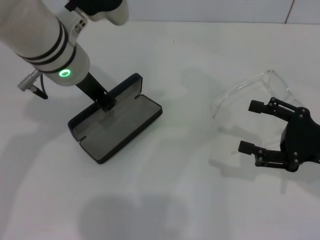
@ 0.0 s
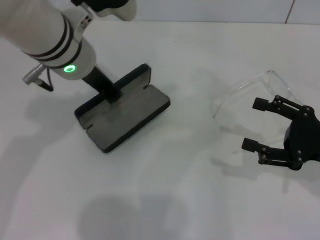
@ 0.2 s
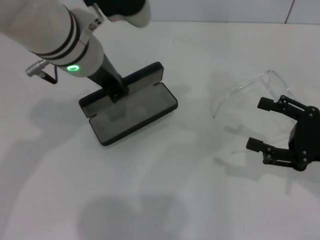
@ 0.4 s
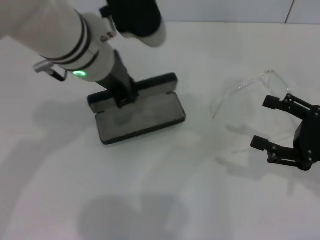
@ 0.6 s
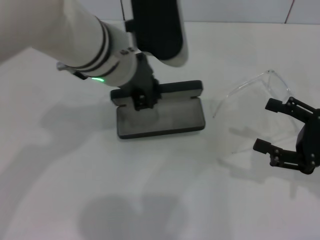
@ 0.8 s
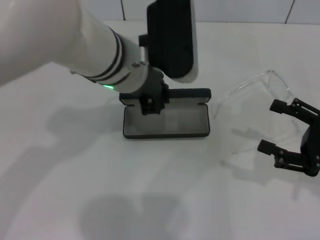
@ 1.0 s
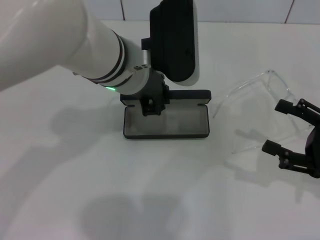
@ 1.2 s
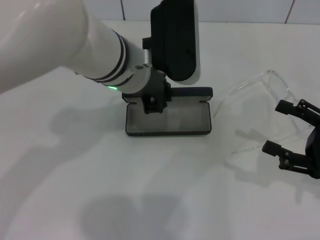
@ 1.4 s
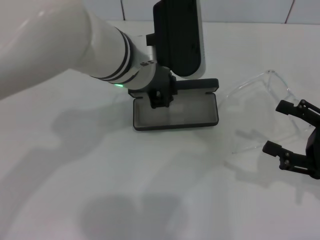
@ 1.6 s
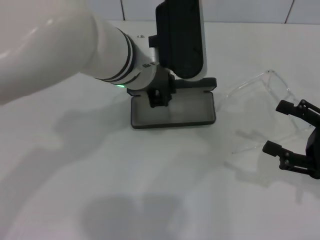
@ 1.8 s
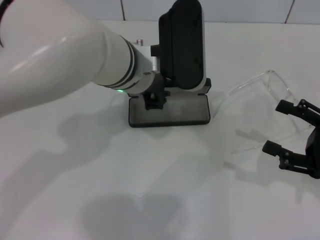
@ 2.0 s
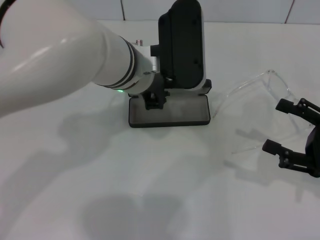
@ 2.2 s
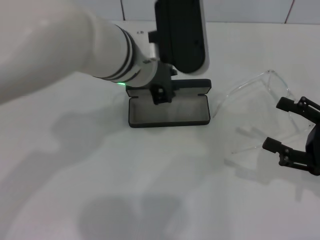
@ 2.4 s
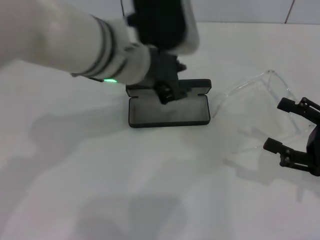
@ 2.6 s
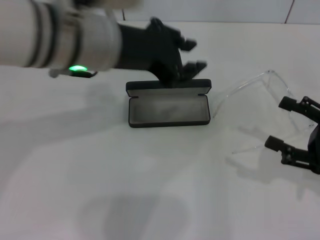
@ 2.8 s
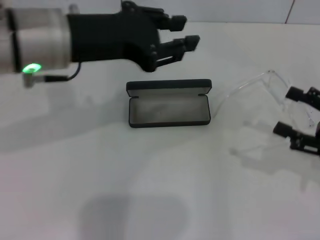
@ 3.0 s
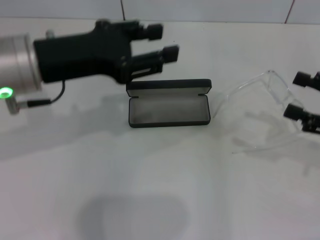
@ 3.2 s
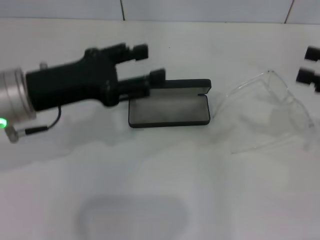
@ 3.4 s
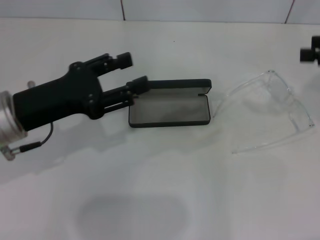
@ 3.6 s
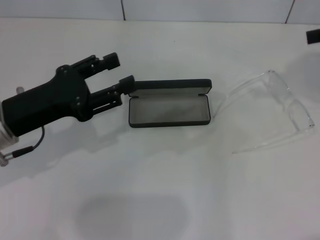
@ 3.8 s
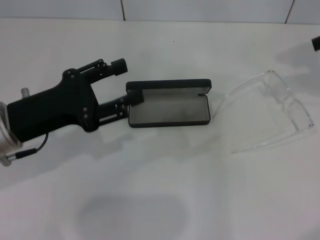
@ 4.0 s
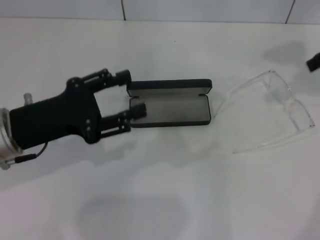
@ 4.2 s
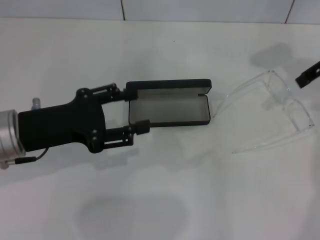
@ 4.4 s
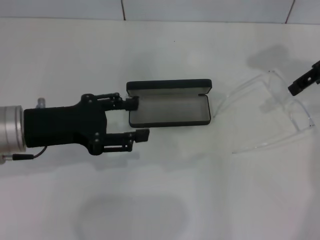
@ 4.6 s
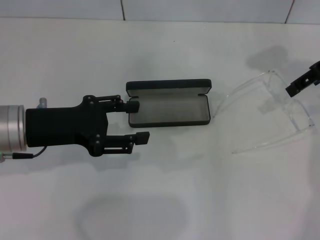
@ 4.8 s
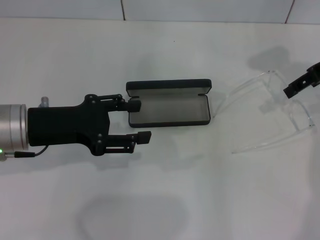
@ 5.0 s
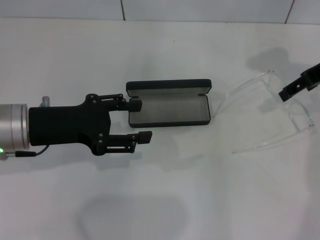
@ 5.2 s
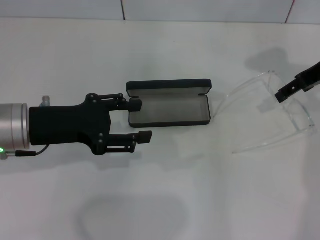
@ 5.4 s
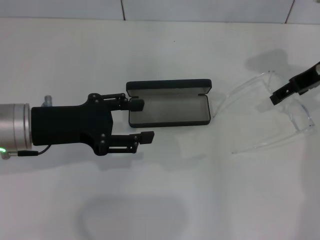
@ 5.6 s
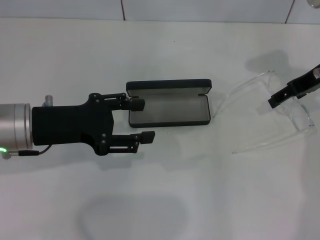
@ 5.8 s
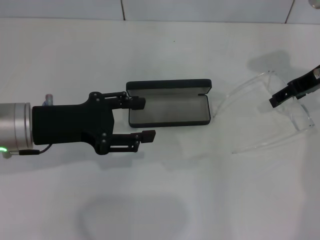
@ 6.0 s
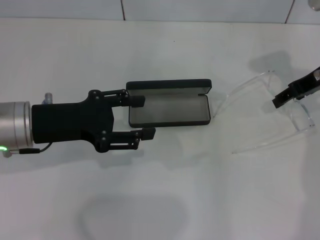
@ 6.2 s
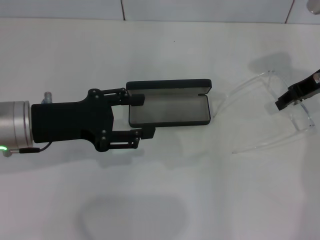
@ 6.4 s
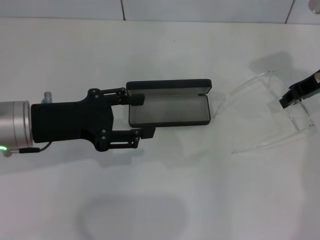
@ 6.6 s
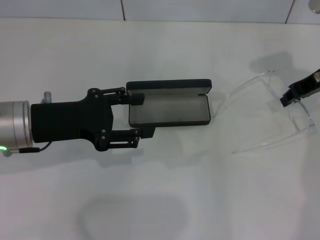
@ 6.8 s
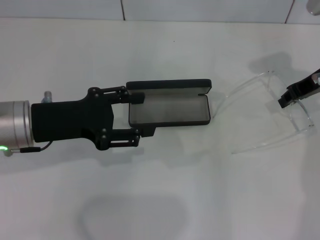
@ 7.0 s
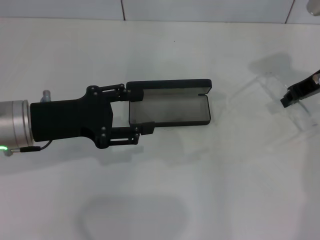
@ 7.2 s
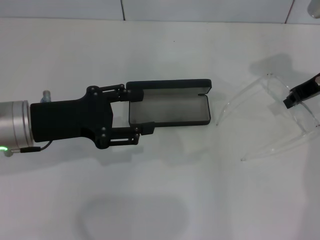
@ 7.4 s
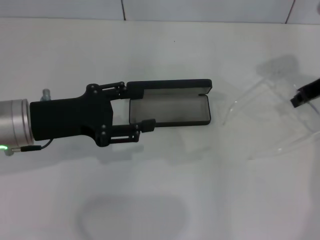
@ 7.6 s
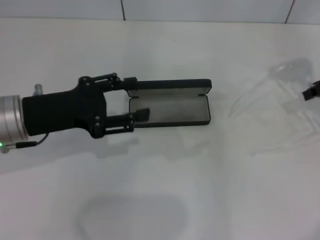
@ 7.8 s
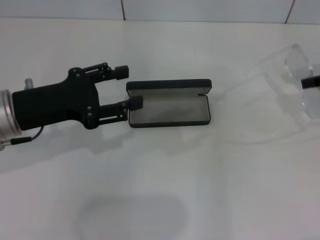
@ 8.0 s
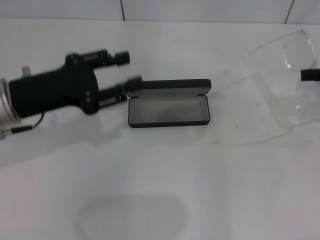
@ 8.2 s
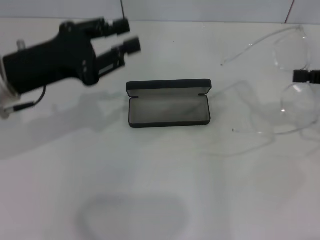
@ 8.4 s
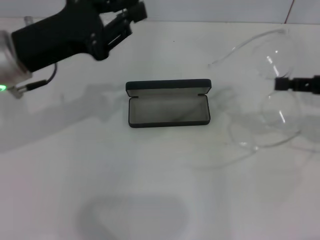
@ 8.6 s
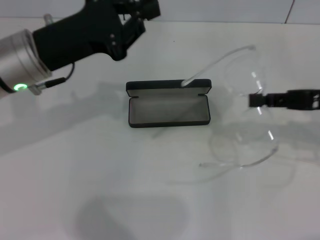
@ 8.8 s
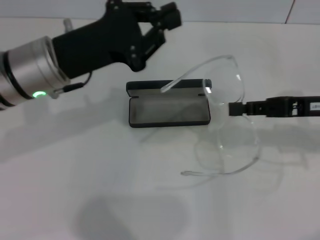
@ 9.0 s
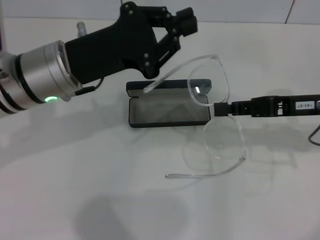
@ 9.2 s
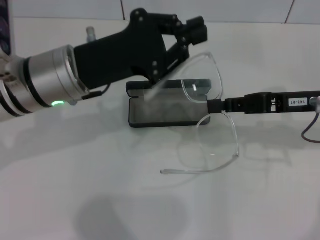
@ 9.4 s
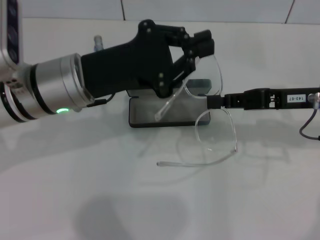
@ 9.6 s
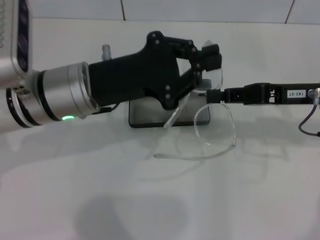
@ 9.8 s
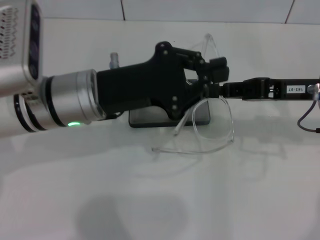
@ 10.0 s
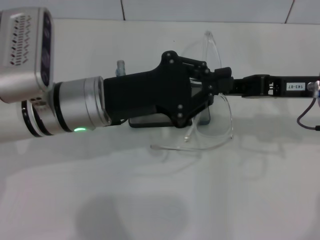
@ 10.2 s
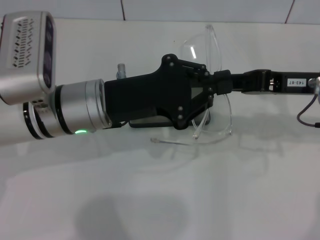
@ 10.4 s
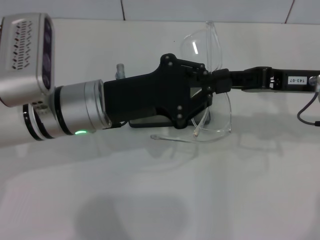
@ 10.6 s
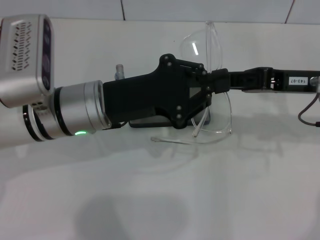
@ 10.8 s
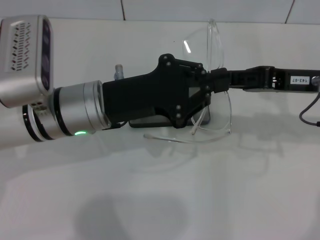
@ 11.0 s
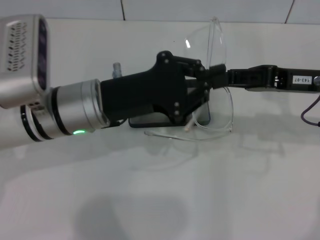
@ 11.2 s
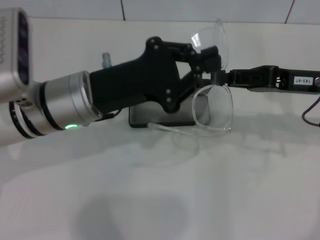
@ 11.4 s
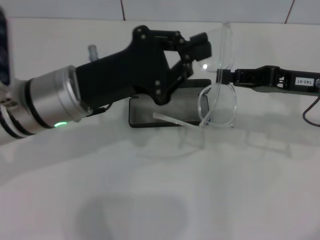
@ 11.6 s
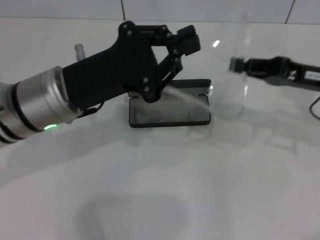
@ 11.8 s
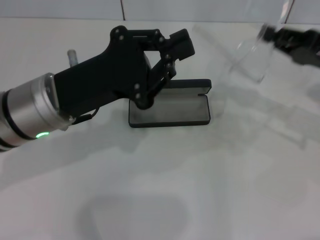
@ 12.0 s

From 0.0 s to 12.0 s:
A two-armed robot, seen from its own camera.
Step, from 0.0 s to 2.6 s: Place the glasses case in the center of the table with your left hand.
Step, from 2.8 s to 7.2 s: Grab the eyeglass frame with your right hand.
From 0.0 s to 1.6 s: The left gripper moves to the right, roughly 5 cm.
From 1.6 s to 3.0 s: The left gripper goes about 10 cm to the left and upward.
From 3.0 s to 4.4 s: The left gripper is displaced downward and to the left by some 15 cm, and opens up, while the right gripper is displaced upward and forward by roughly 25 cm.
From 4.4 s to 6.0 s: The right gripper is displaced downward by roughly 10 cm.
From 6.0 s to 7.6 s: The right gripper closes up.
From 7.6 s to 9.0 s: The left gripper changes place by approximately 5 cm, and closes up; the right gripper moves backward, some 10 cm.
From 9.0 s to 10.4 s: The left gripper changes place by approximately 5 cm.
From 10.4 s to 12.0 s: The right gripper goes approximately 5 cm to the right.

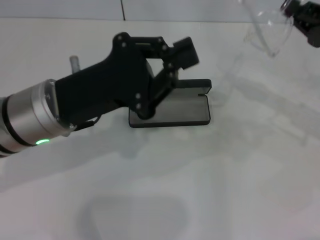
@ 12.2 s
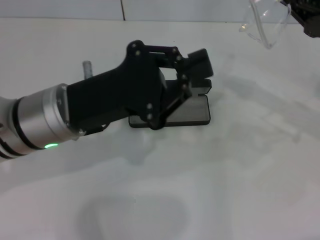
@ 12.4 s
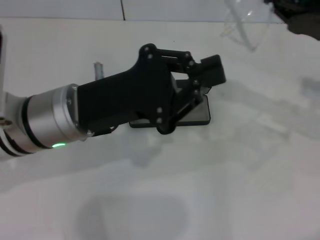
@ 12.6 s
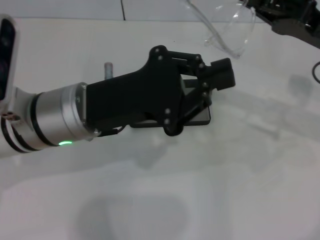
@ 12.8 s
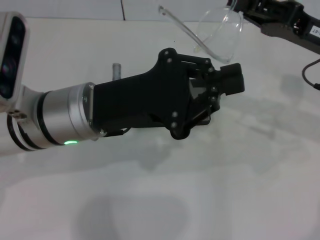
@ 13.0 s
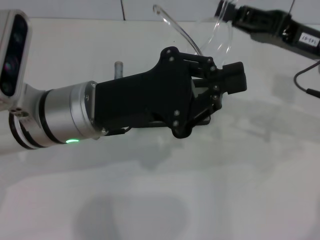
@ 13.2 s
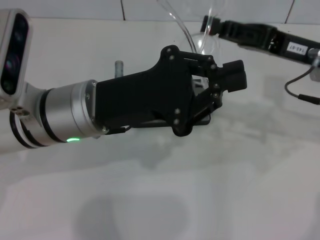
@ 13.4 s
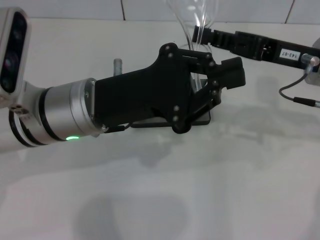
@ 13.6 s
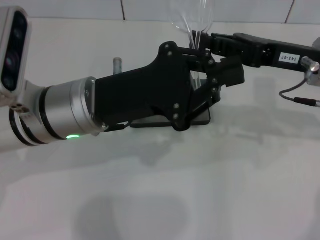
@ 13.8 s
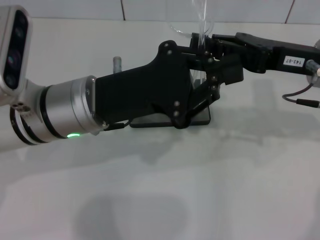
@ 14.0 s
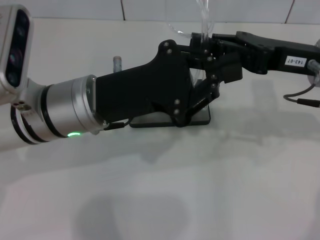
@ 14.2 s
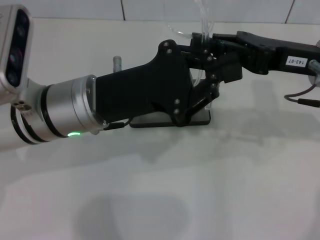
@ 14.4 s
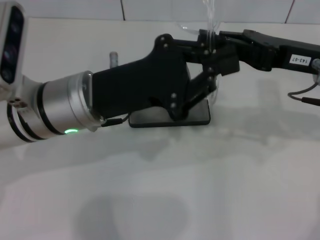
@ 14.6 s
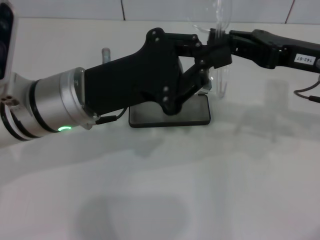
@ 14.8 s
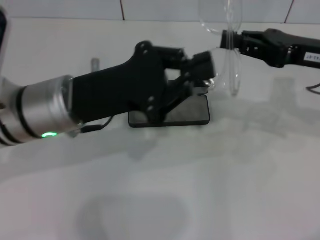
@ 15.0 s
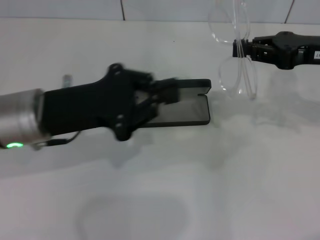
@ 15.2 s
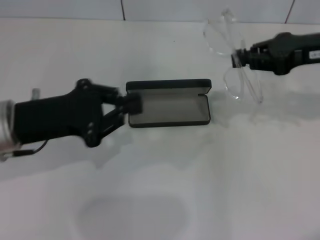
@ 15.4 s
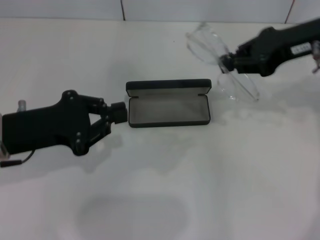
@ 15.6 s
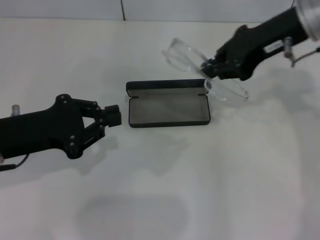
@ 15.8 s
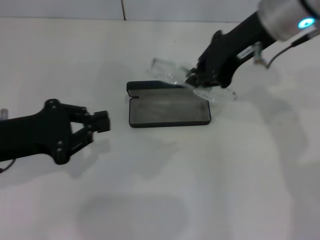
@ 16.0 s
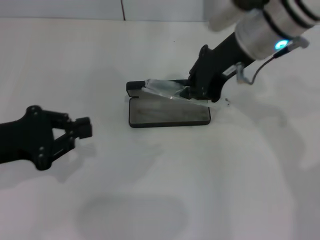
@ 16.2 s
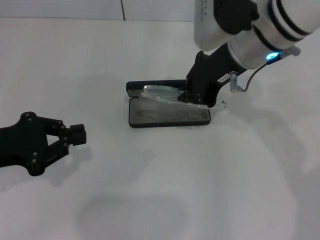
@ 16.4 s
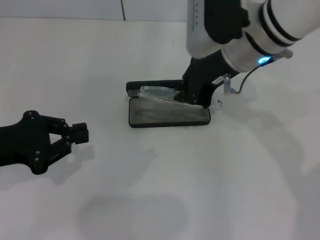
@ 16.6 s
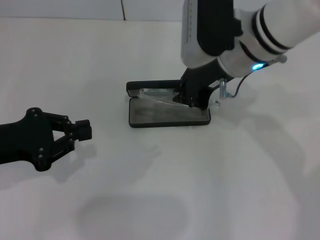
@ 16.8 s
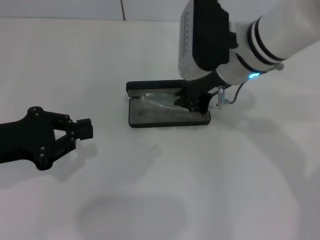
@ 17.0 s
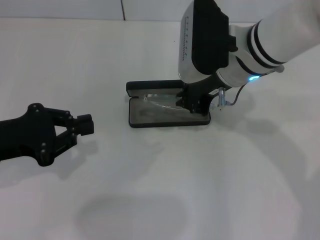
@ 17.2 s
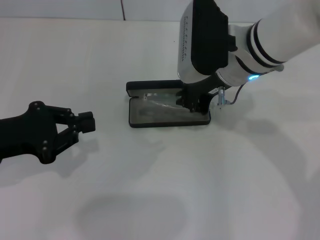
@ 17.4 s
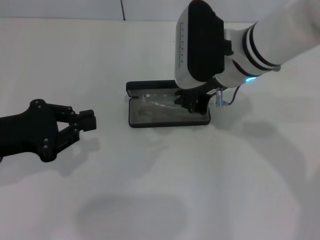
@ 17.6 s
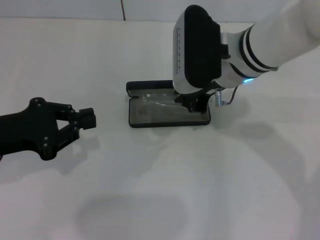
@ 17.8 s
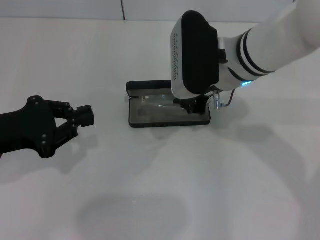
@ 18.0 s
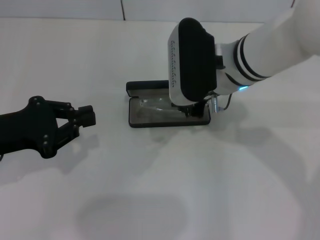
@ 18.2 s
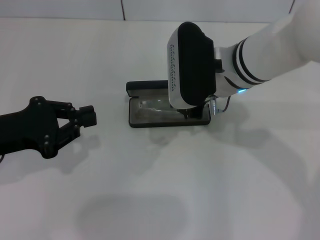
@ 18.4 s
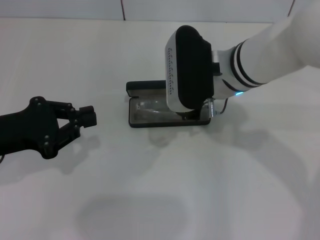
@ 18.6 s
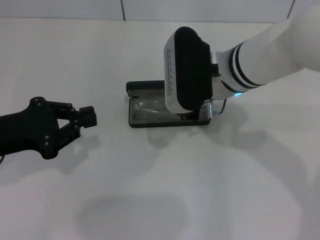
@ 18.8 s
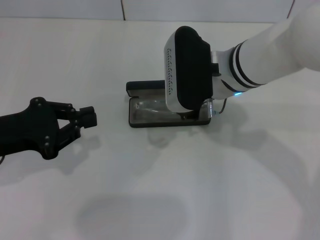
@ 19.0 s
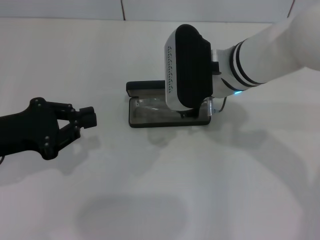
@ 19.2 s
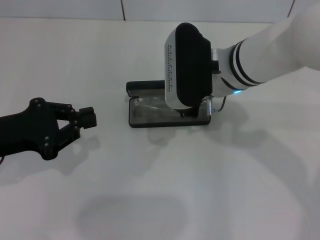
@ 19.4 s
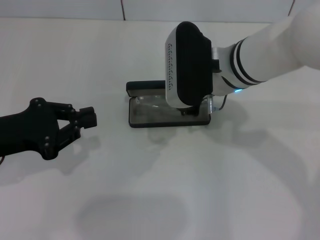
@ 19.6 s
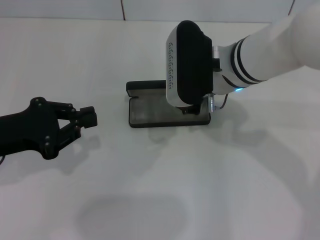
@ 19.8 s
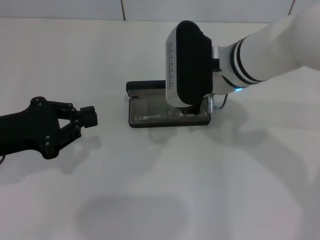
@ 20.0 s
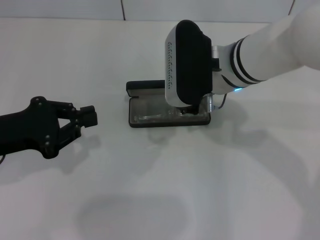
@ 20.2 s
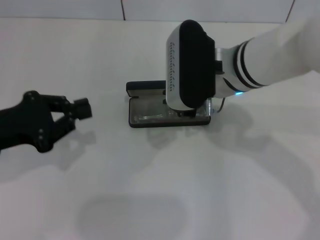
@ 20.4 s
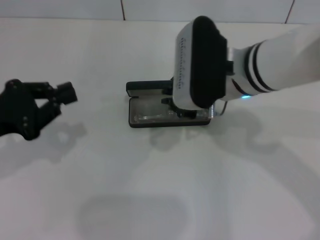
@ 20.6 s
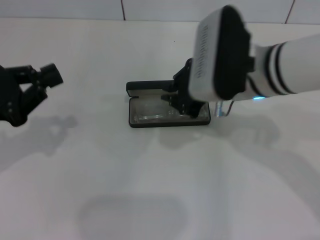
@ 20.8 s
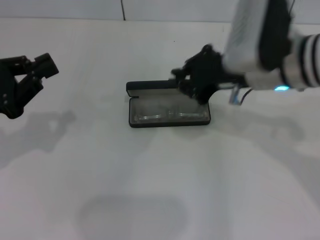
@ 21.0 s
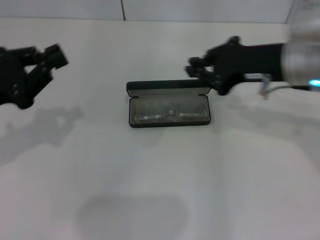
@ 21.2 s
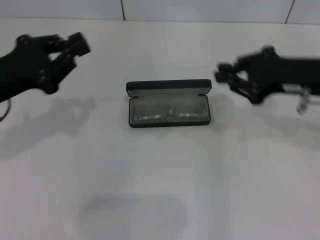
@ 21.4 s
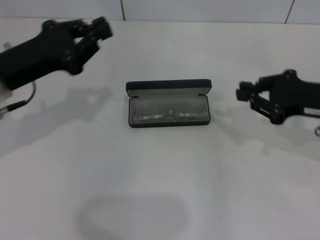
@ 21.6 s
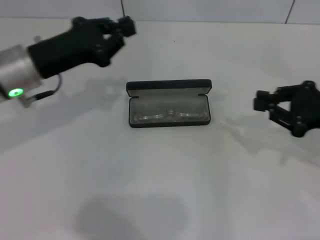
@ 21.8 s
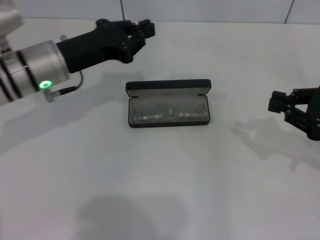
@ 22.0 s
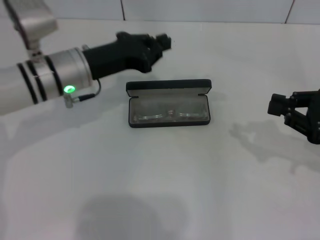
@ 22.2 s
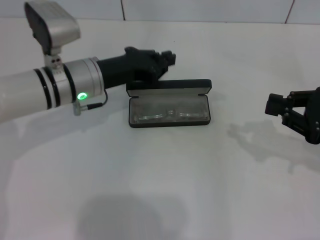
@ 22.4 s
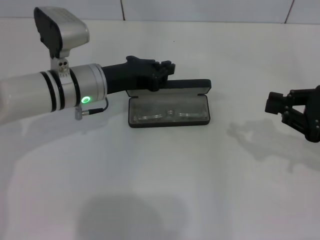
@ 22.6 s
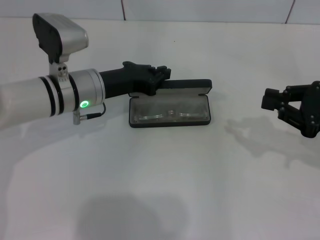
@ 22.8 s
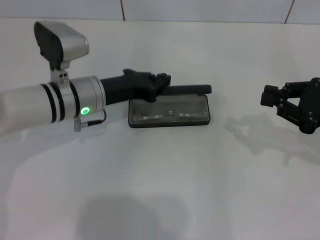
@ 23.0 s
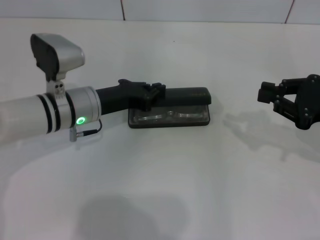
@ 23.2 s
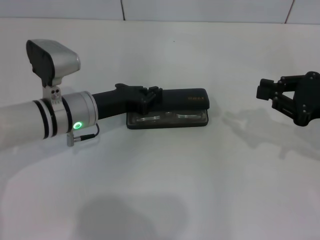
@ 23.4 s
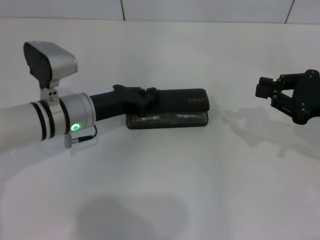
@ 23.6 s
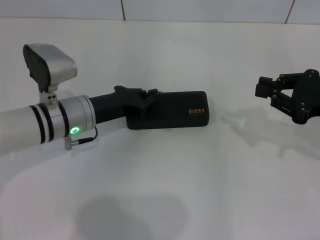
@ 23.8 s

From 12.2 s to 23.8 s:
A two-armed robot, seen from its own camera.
Step, from 12.2 s to 14.6 s: Fold the frame with your left hand.
Step, from 15.0 s to 20.2 s: Put the glasses into the case with your right hand.
Step, from 20.4 s to 23.8 s: Close the glasses case with your left hand.
From 12.2 s to 13.6 s: The right gripper moves to the left, roughly 10 cm.
From 13.6 s to 15.0 s: The grippers make only small movements.
From 15.0 s to 16.6 s: The grippers both shift to the left by about 15 cm.
From 16.6 s to 19.4 s: The grippers move only a little.
From 19.4 s to 21.0 s: The right gripper goes some 5 cm to the right.
From 21.0 s to 22.4 s: The left gripper goes roughly 20 cm to the right and forward. The right gripper is displaced to the right and downward by roughly 20 cm.
From 22.4 s to 23.8 s: The left gripper ends up roughly 5 cm from where it was.
